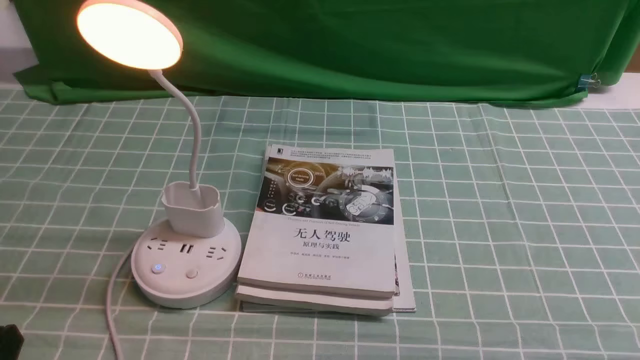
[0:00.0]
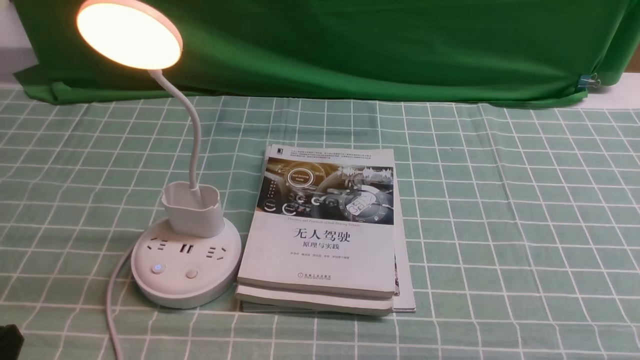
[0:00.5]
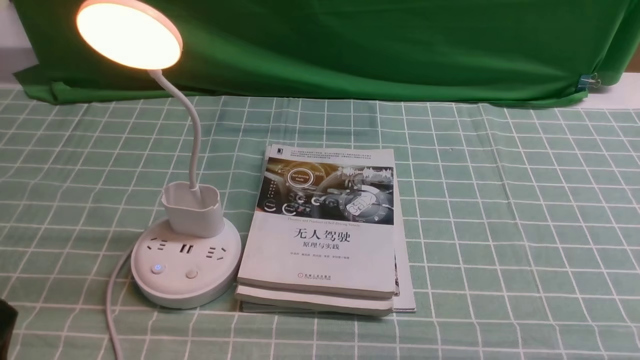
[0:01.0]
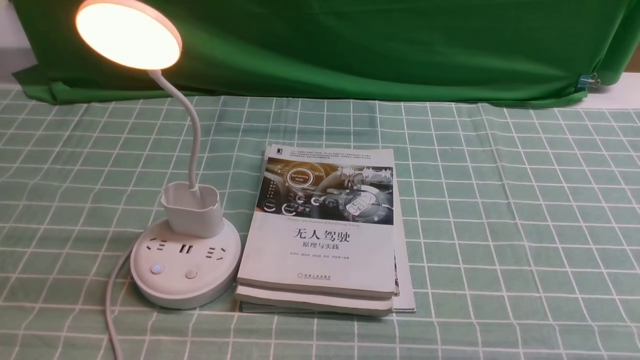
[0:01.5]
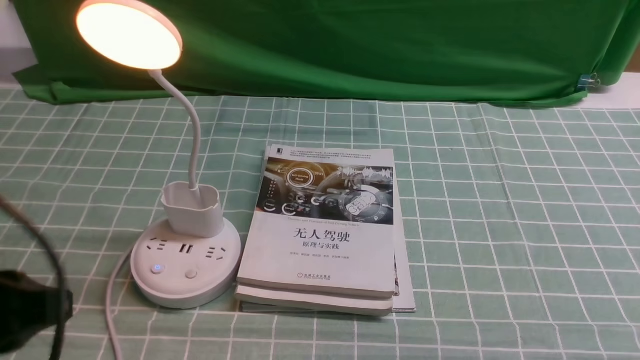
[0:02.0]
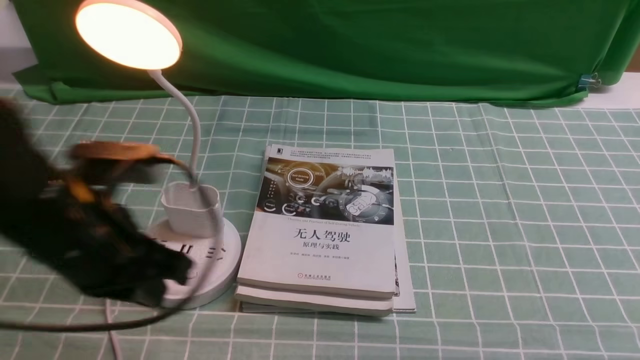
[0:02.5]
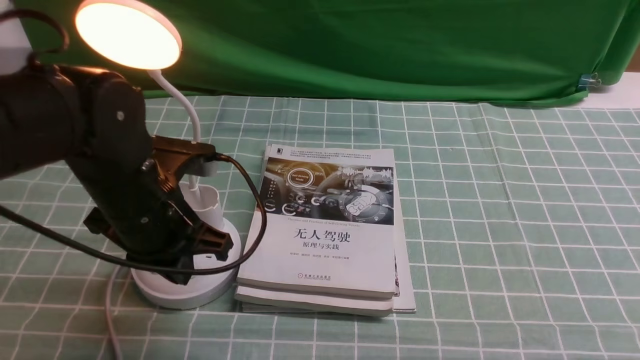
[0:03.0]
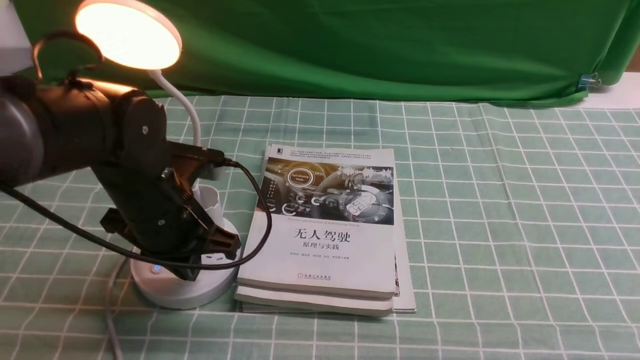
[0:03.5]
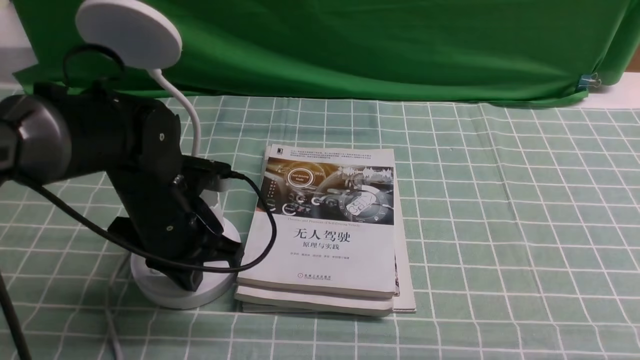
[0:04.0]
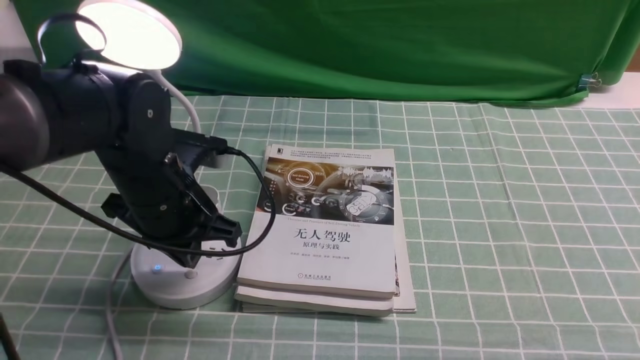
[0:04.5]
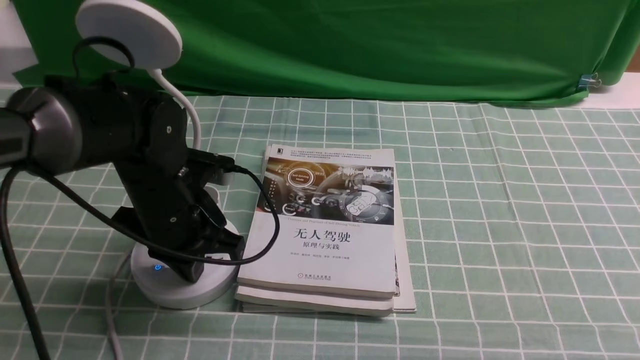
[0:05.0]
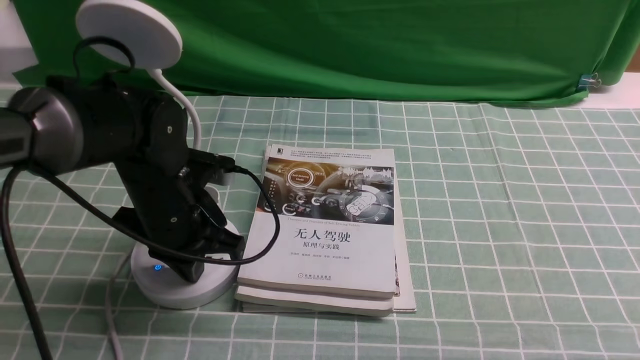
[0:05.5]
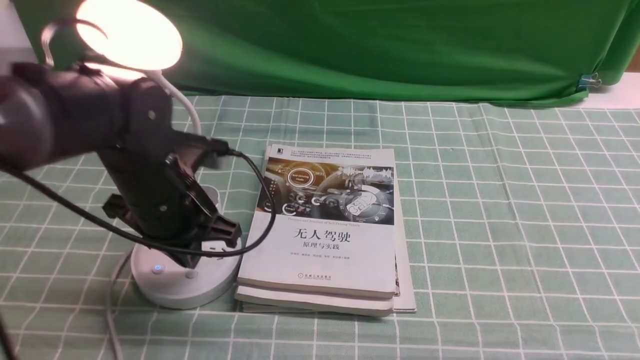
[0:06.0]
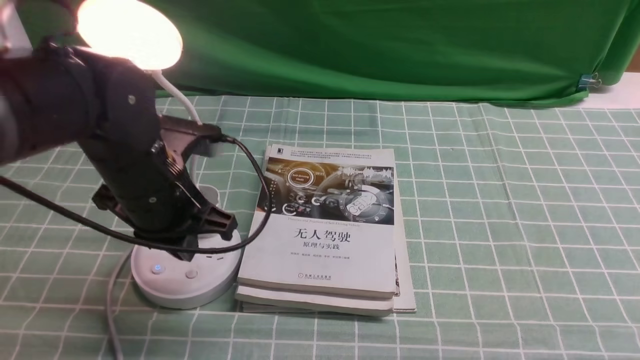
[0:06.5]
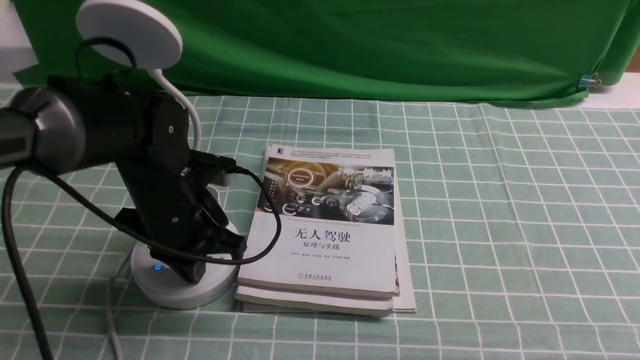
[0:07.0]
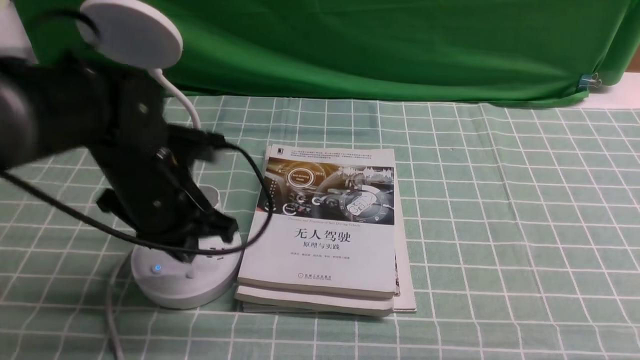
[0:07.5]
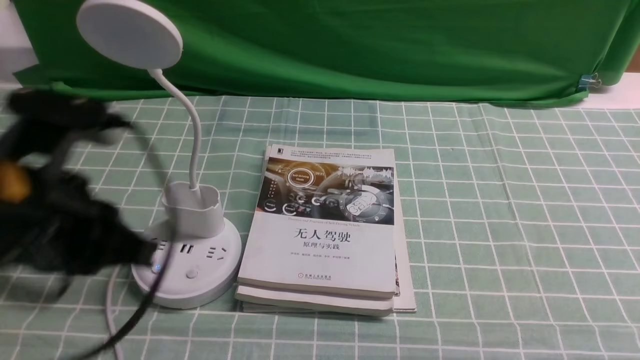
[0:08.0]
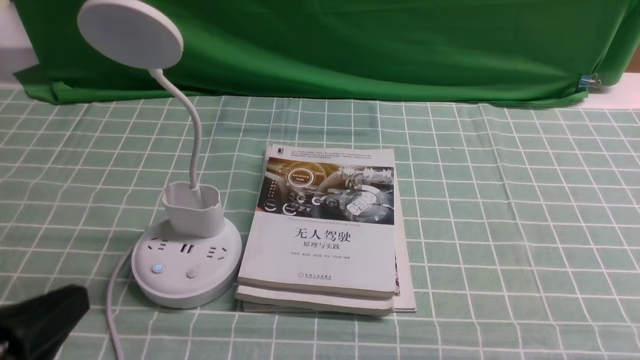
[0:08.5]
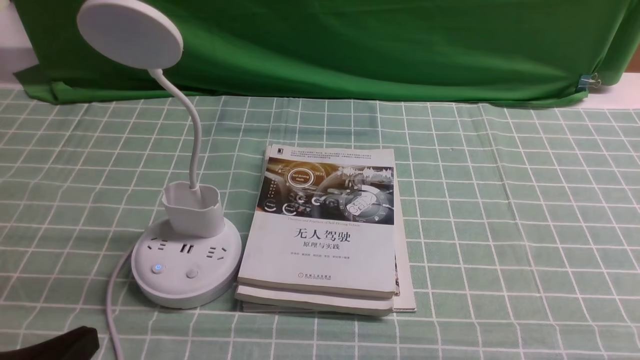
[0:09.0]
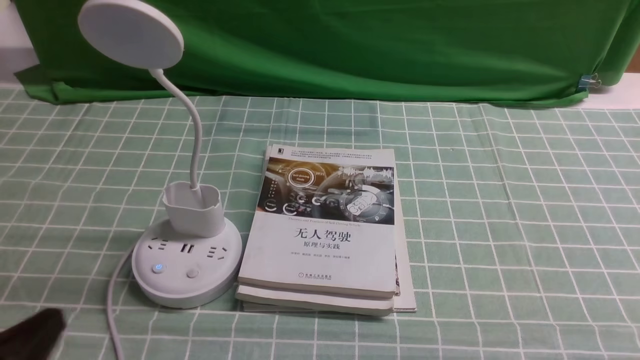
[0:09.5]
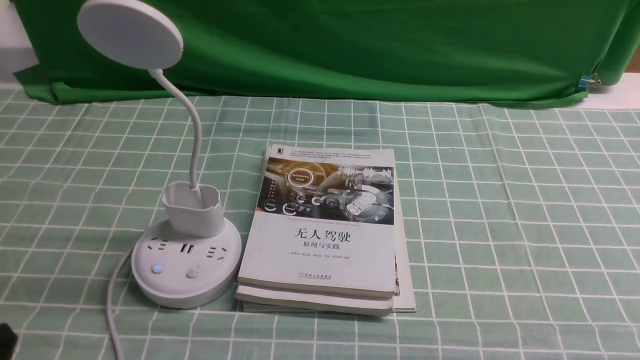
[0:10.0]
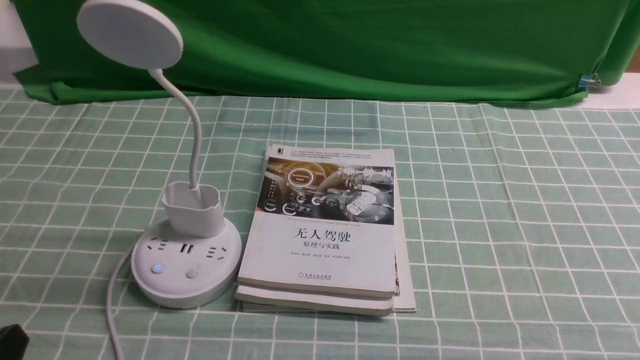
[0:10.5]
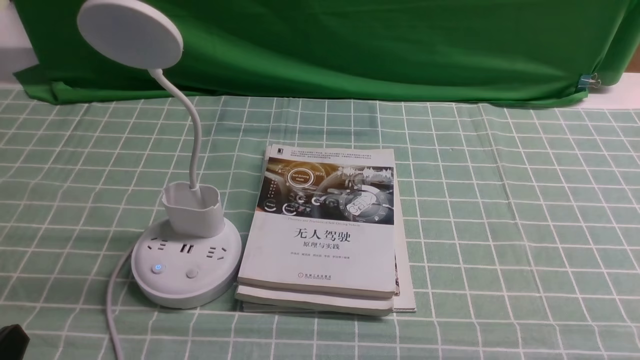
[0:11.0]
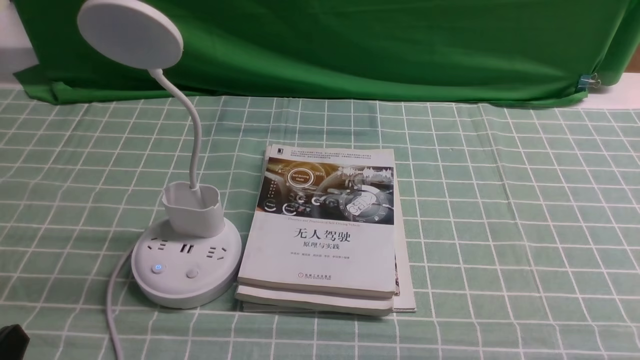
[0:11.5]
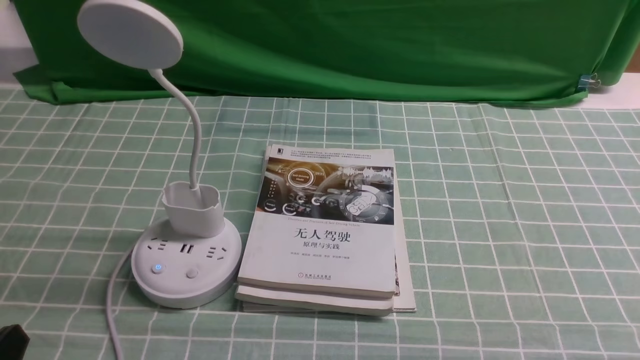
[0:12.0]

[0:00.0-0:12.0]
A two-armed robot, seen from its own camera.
Task of the whole recording: turn off the desk lamp on the blue coffee tablecloth by hand.
Step, 0:00.0 to 0:07.0: use the left arm to press the button switch on the lamp holder.
0:00.0 to 0:02.0: The left gripper heads upward and forward, covering approximately 15 cm.
0:02.0 to 0:04.0: The left gripper shifts some 20 cm forward, downward and to the right, and closes up.
0:06.0 to 0:08.0: The left gripper goes roughly 15 cm backward and upward.
0:08.0 to 0:10.0: The left gripper goes roughly 20 cm downward, backward and to the left.
0:10.0 to 0:12.0: Neither gripper changes place.

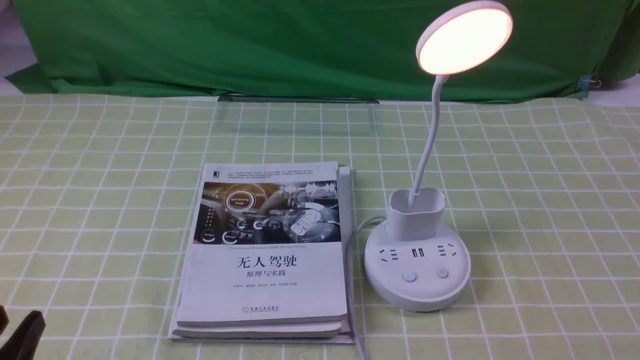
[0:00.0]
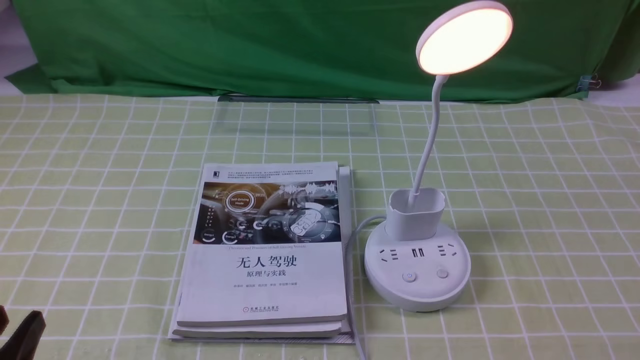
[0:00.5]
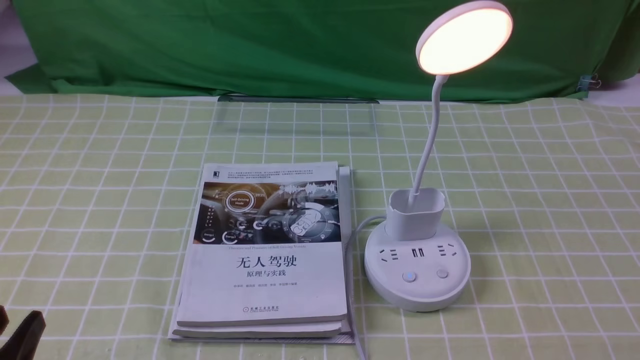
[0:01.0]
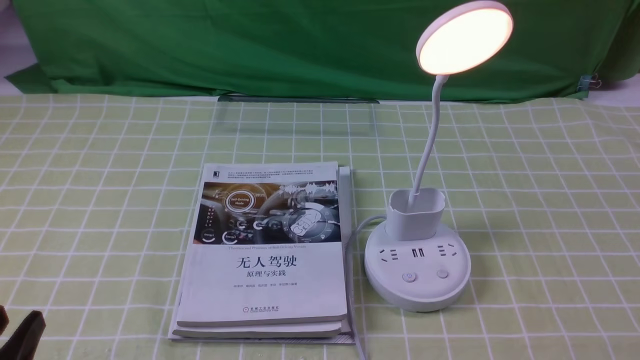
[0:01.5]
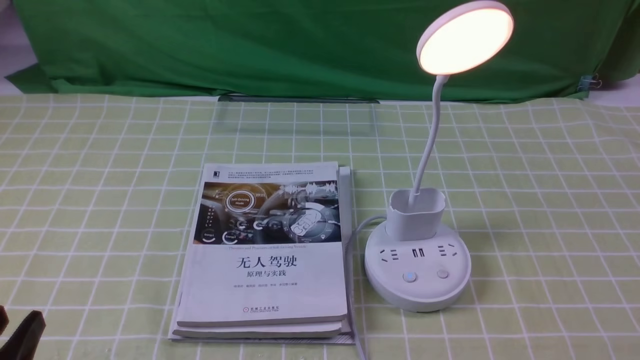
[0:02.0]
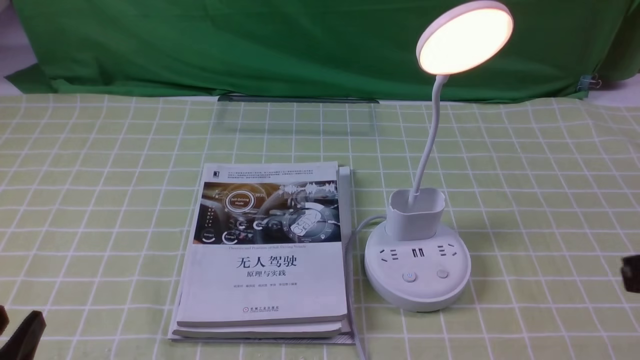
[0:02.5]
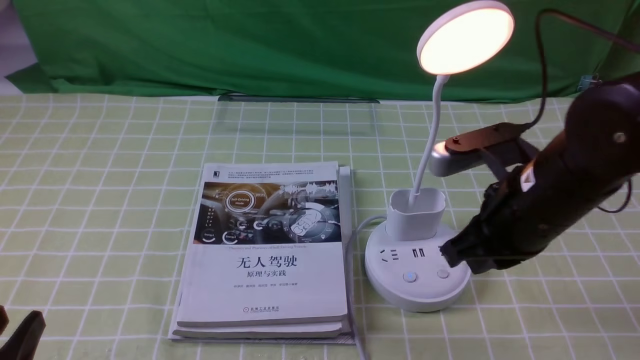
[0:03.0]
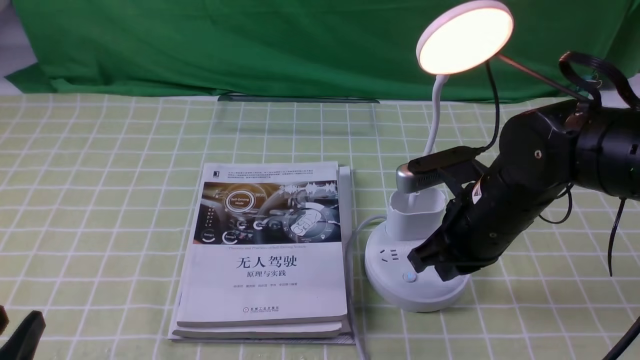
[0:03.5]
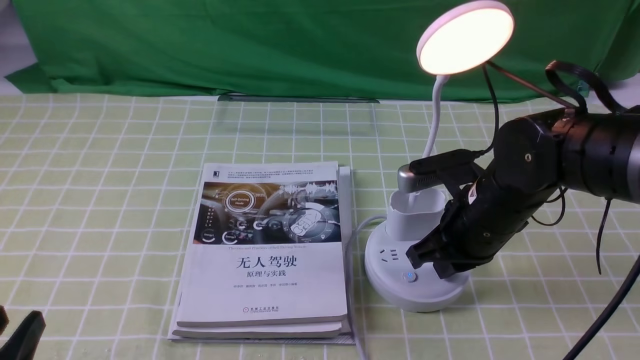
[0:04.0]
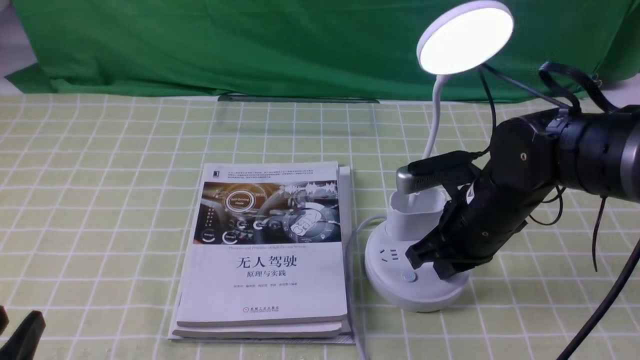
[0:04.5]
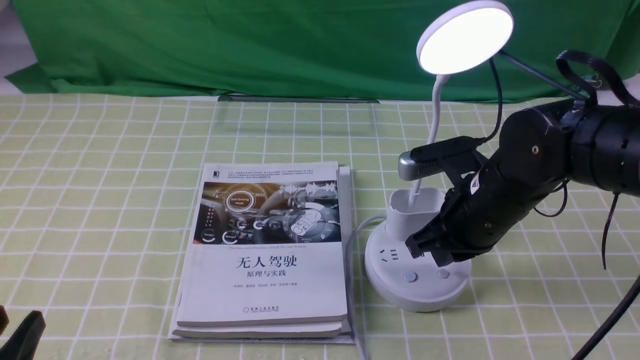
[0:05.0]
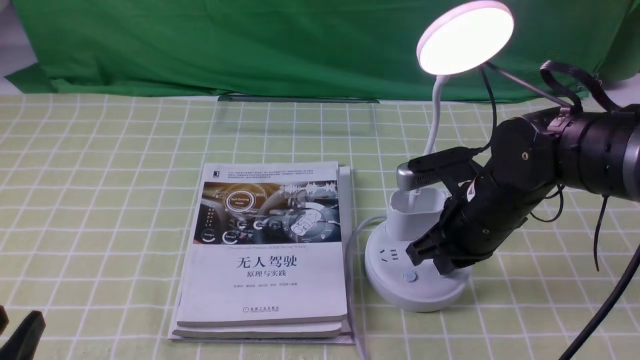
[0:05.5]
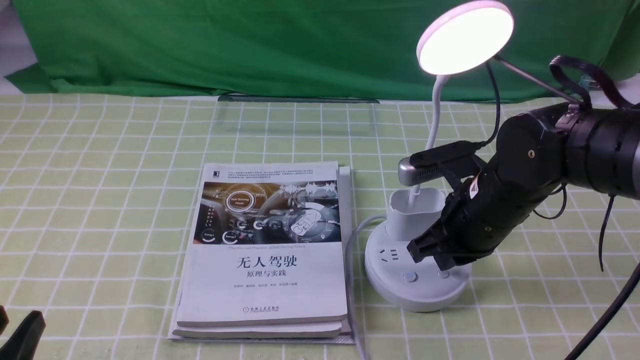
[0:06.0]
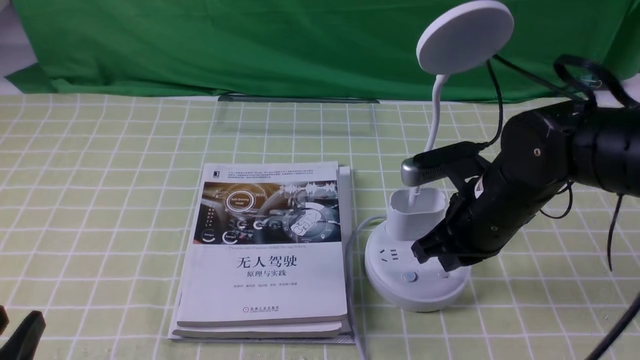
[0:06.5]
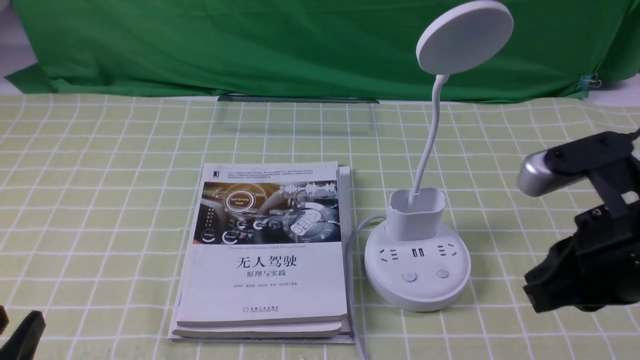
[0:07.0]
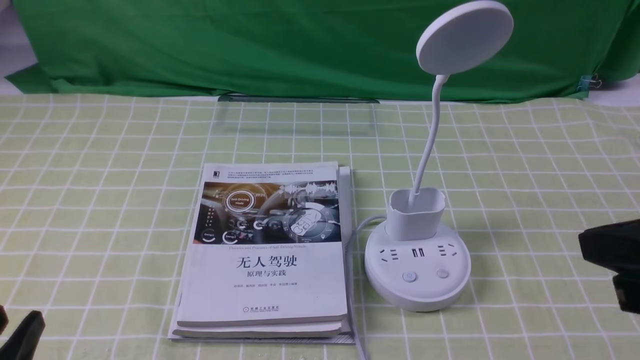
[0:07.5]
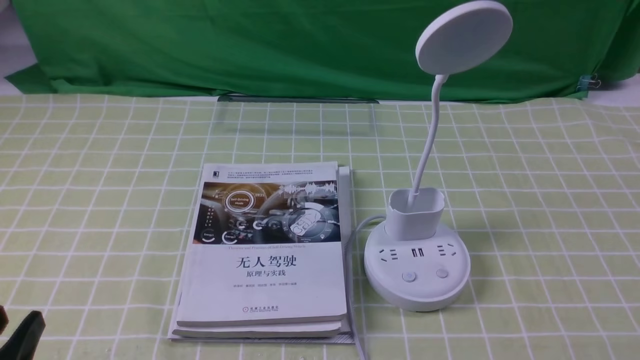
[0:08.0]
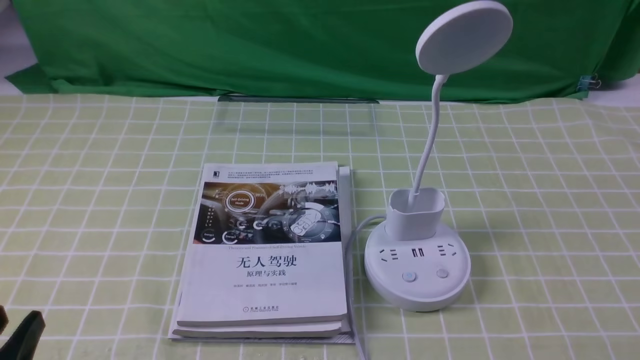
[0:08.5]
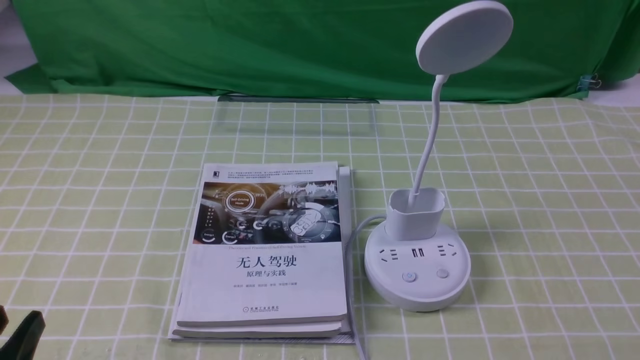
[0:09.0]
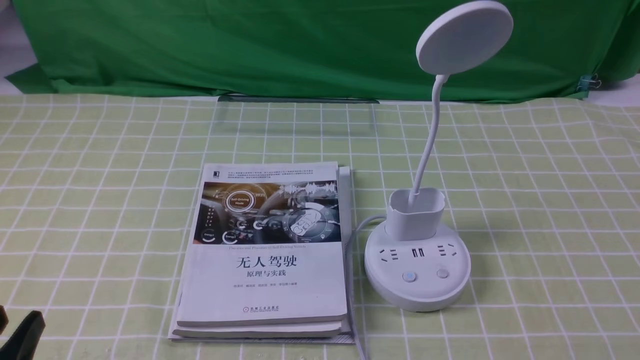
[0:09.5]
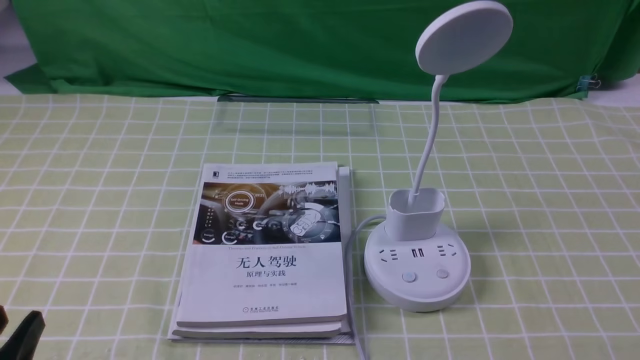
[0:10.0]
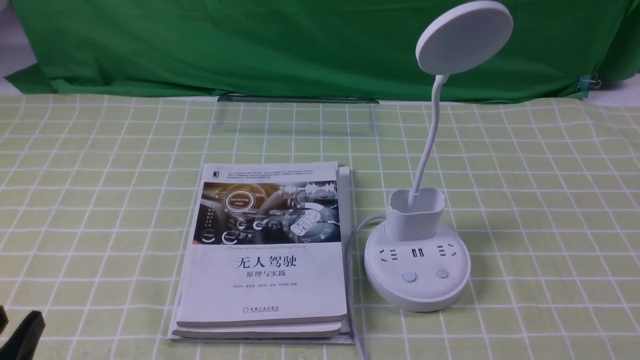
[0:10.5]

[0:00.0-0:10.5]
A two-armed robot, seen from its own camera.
Task of the whole recording: turn off the desk lamp on the green coffee tablecloth by hand.
Step, 0:00.0 to 0:06.5: use the right arm to press the button switch on the lamp holder.
0:02.0 to 0:04.0: The right gripper goes roughly 30 cm forward and to the left, and closes up.
0:04.0 to 0:06.5: The two grippers keep their place.
0:06.5 to 0:08.5: The right gripper moves backward and to the right, roughly 30 cm.
